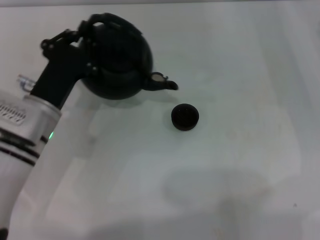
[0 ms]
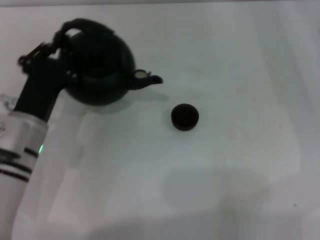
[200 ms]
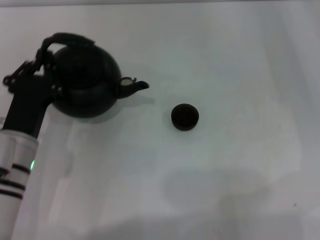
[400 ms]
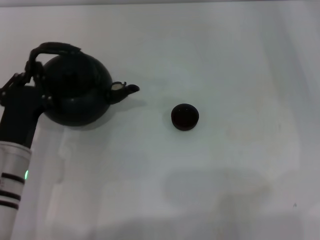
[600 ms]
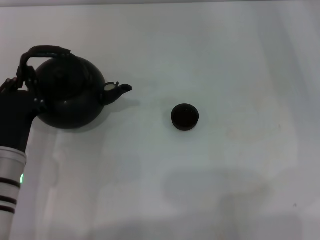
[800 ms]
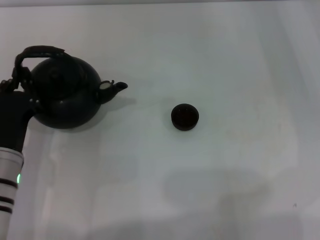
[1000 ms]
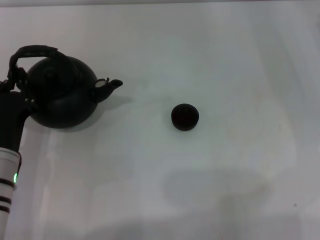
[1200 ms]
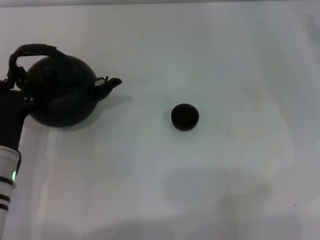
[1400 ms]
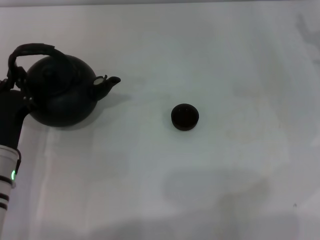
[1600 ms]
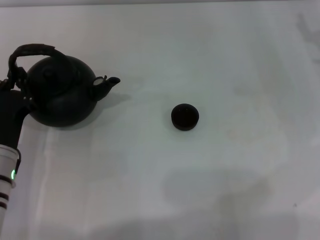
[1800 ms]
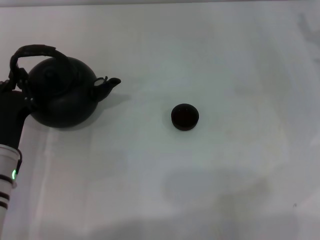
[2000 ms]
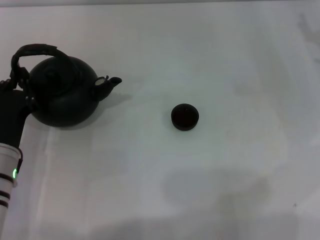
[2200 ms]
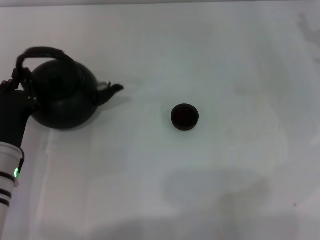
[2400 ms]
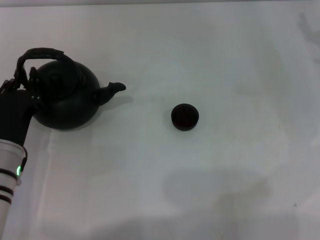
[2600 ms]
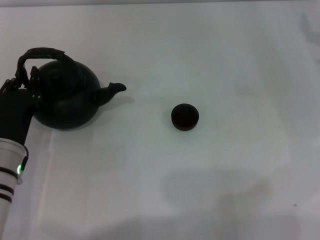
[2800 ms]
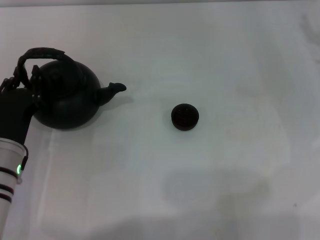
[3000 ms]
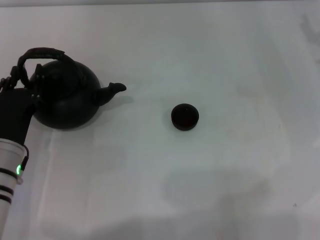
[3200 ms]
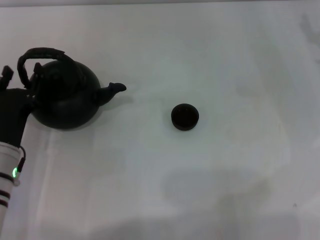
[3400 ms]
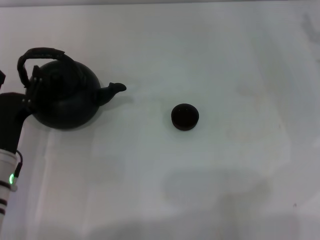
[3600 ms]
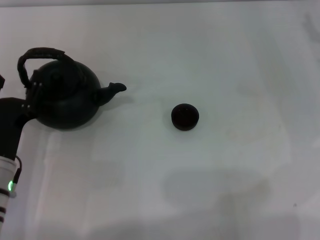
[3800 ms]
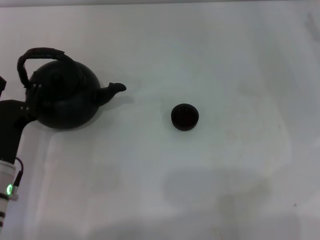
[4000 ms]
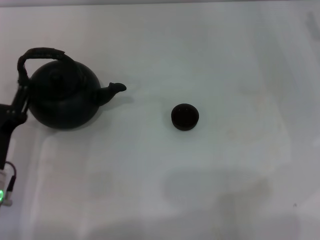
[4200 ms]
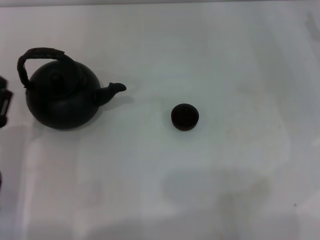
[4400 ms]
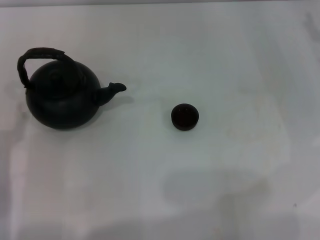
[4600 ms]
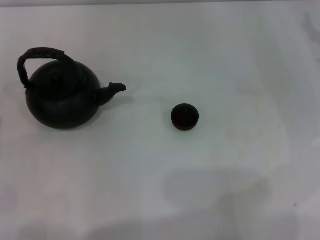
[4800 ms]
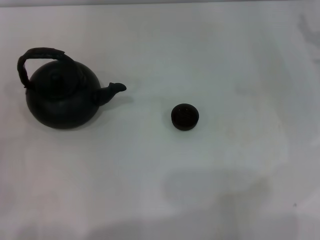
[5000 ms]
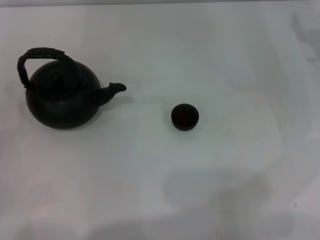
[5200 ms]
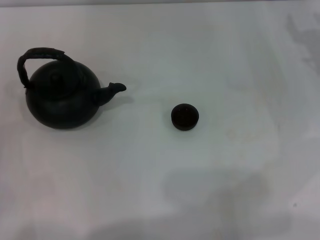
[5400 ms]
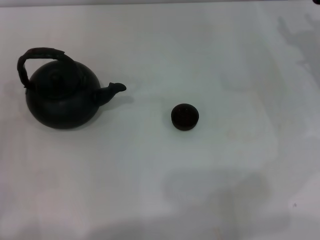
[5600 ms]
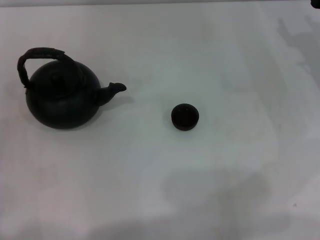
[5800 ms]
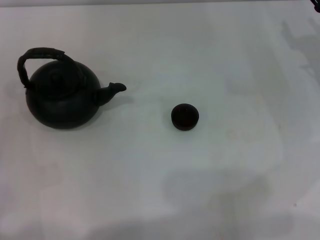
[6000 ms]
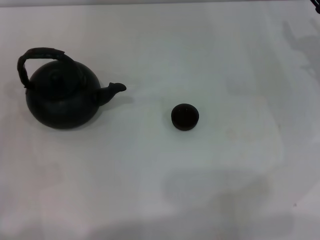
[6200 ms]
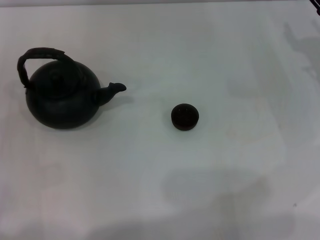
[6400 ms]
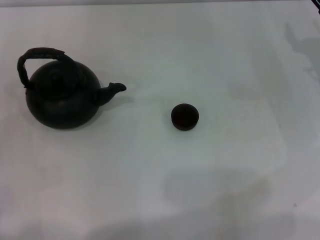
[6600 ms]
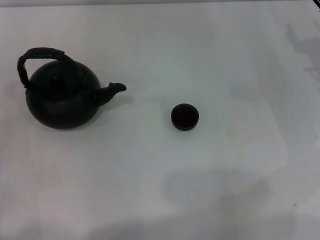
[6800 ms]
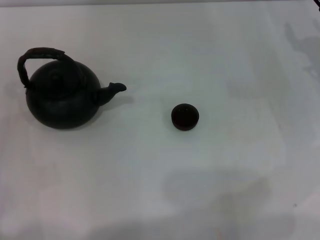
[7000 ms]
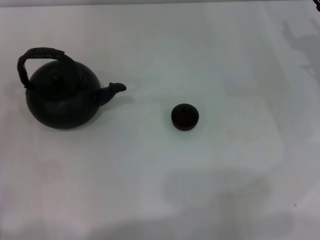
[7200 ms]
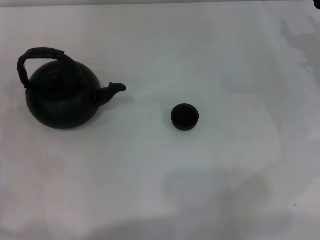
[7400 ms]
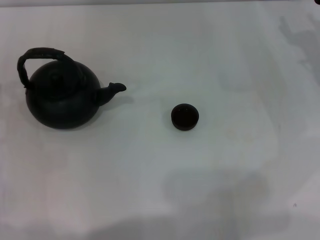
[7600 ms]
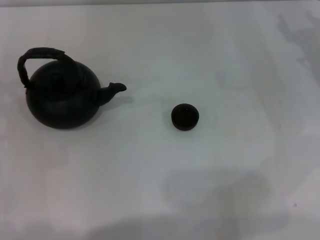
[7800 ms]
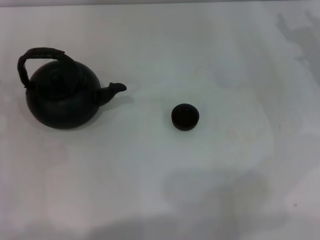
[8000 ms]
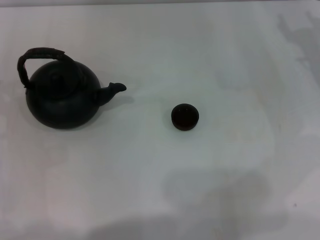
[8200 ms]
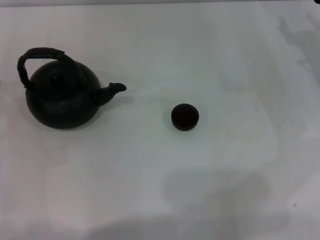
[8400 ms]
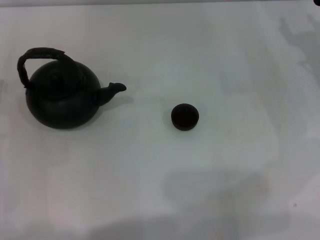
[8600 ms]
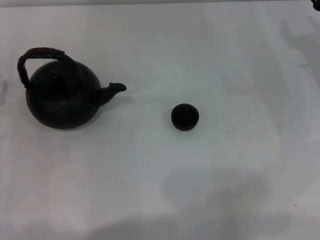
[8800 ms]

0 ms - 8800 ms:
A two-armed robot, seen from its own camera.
Task of the whole recording: Grasp the handle of the teapot with one hand and pour tea into the teacup.
Step, 400 ms - 4200 ms: Put down the teapot with the left gripper.
0 ms - 1400 ms: The left gripper travels backward by roughly 5 cm.
1400 ms - 3000 ms: The grippers make only small movements.
3000 ms - 4400 ms: The left gripper is displaced backward by some 5 cm, and opens up.
4400 ms - 5800 ms: The left gripper moves to the left, roughly 5 cm.

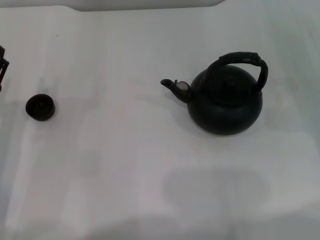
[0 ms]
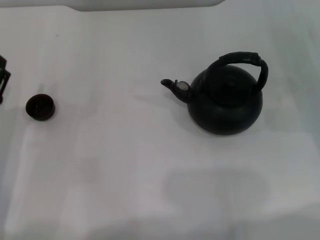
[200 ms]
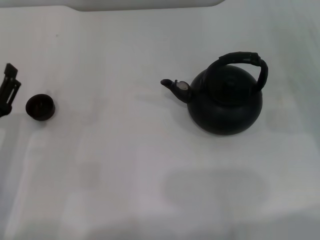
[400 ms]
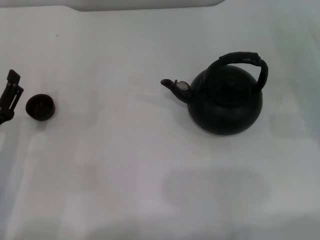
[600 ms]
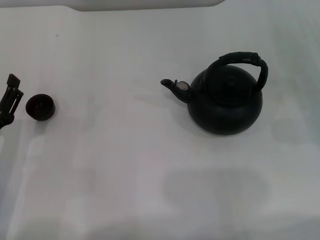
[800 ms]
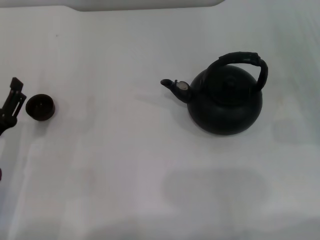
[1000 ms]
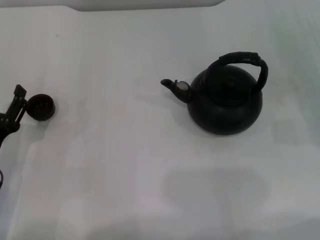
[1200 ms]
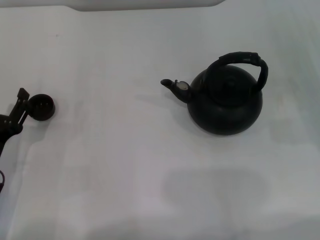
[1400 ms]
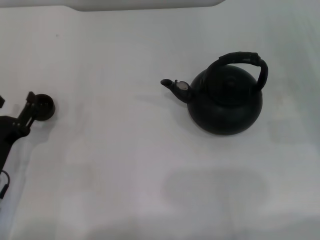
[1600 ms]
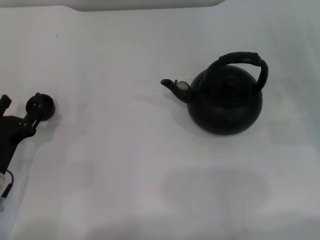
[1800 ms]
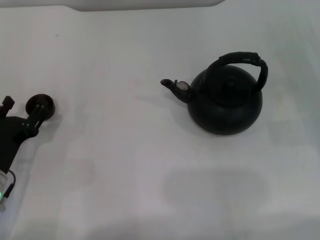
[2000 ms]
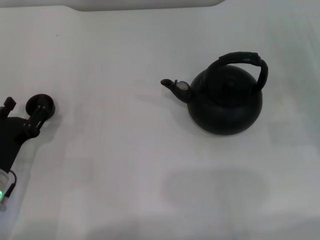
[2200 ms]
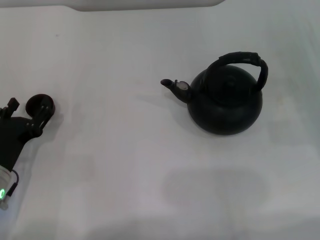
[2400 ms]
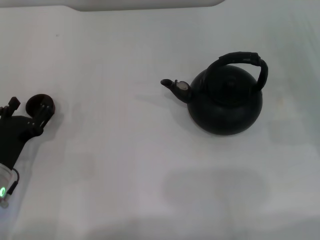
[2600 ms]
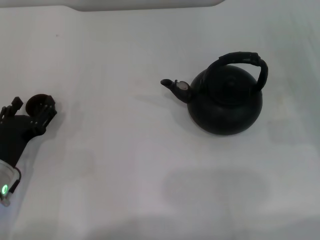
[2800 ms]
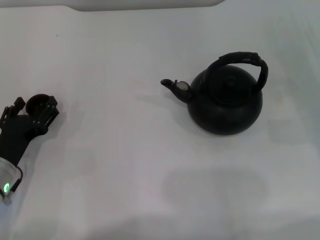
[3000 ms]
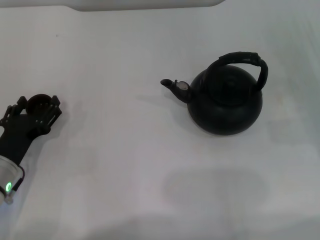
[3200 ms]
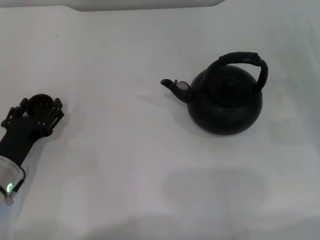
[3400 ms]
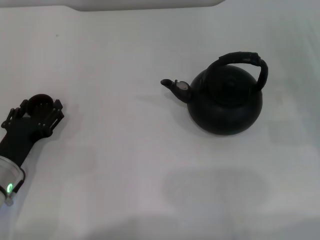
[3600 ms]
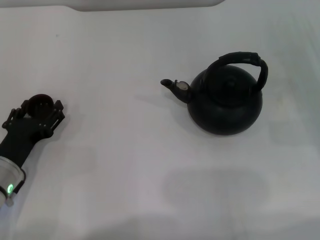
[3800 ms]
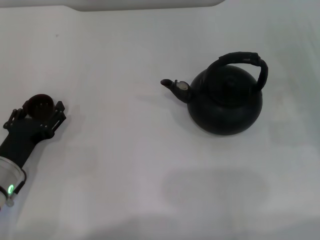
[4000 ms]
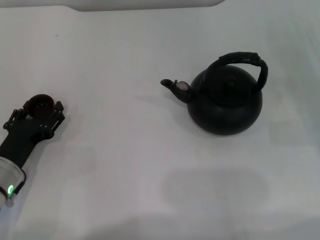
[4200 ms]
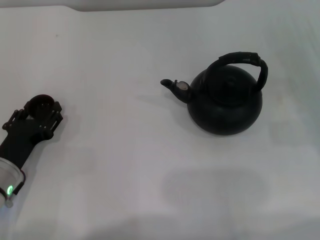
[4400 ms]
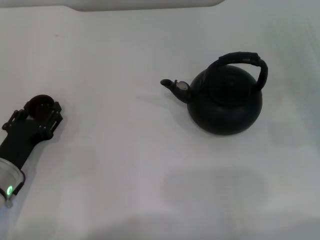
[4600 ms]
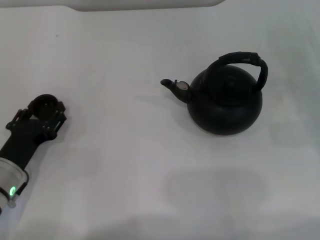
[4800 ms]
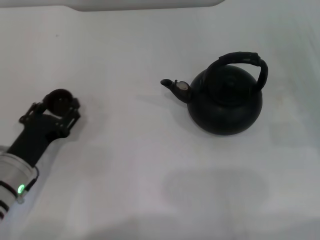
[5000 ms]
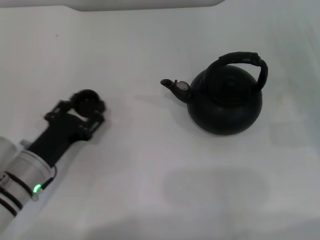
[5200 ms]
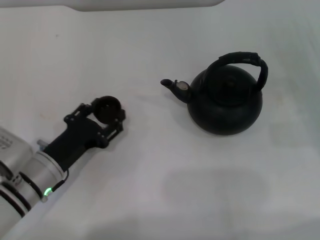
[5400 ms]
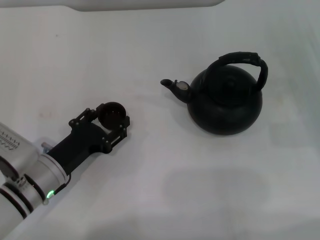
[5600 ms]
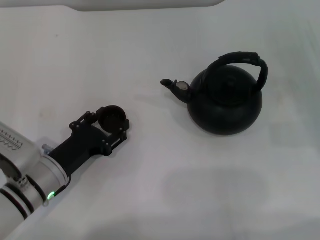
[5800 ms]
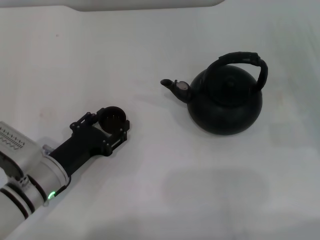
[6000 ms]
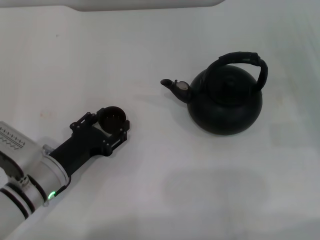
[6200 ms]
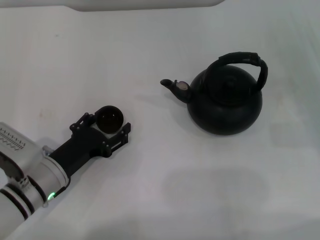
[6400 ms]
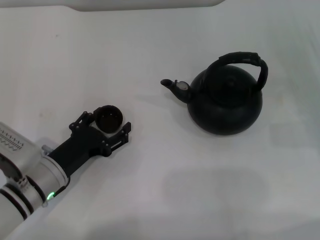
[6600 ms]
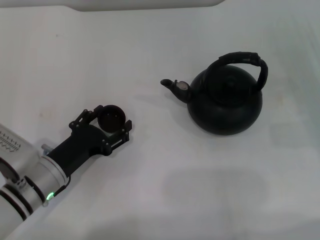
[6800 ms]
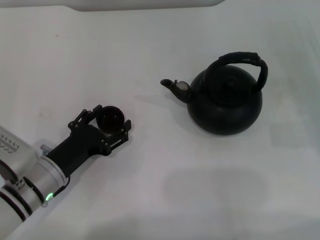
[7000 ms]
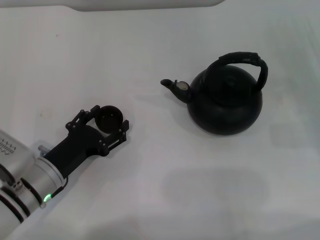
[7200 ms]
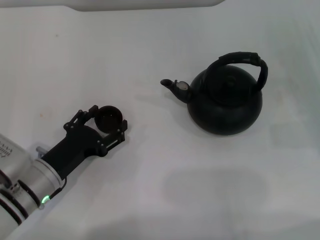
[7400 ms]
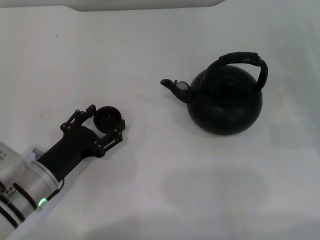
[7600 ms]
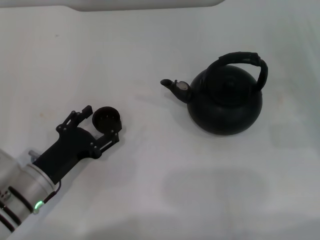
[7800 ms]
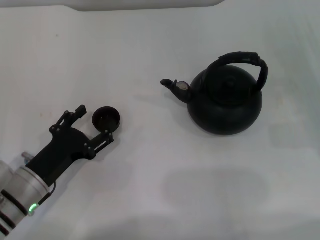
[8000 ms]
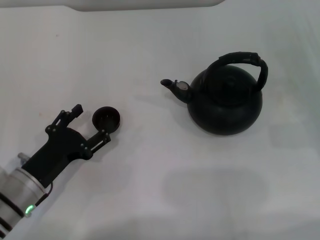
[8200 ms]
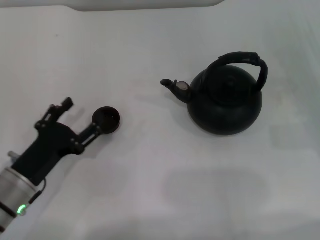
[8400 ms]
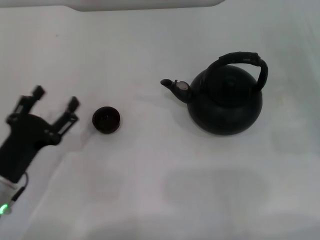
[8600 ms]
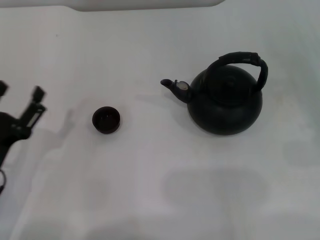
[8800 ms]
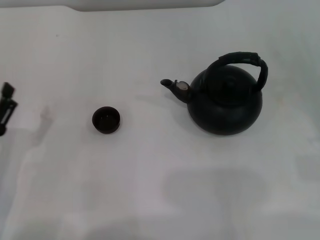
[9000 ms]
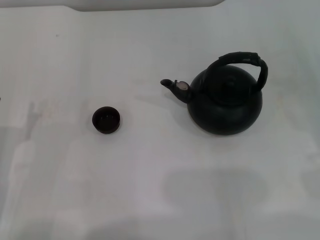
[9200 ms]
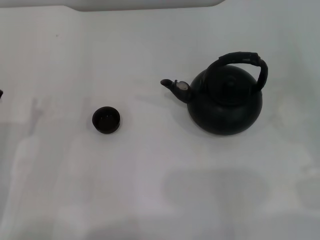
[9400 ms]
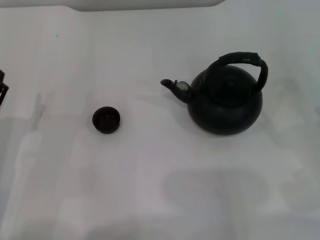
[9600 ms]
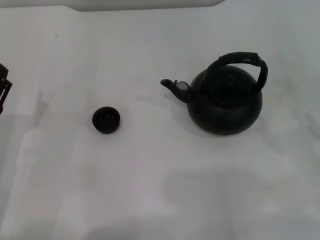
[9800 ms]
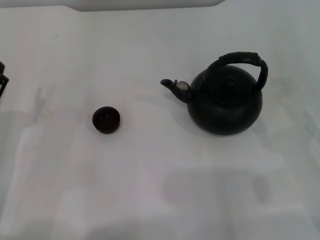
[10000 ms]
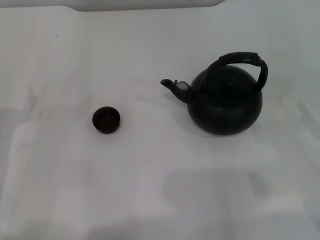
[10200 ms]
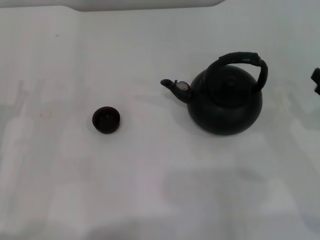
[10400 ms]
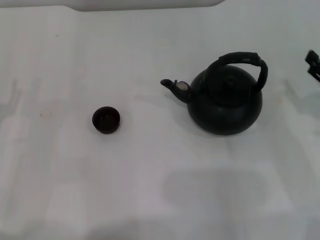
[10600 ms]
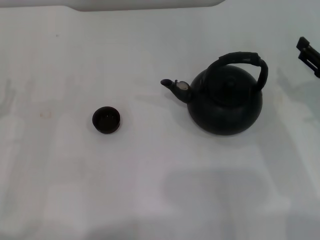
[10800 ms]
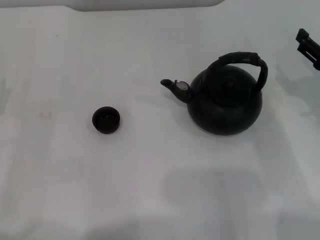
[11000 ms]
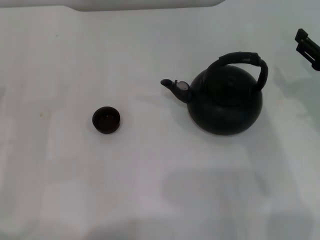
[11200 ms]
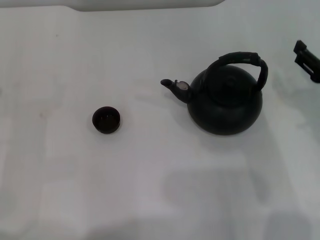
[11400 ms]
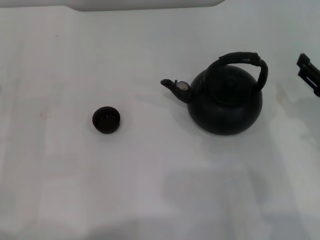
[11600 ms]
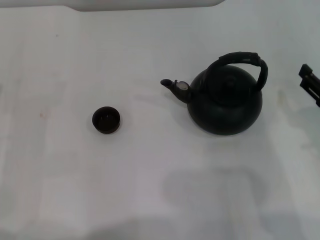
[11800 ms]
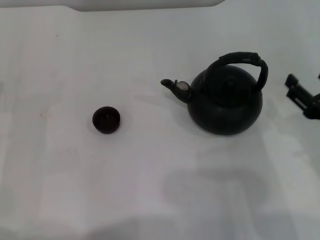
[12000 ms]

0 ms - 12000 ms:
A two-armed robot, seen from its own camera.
Task of the whole recording: Grasp the handle of the teapot with one hand and pour tea into the teacup.
Step, 0 ms - 4800 ms: Pick up the teacup with the left gripper.
Step, 5000 ms - 8400 ms: Place the teacup in the center of view with the left gripper.
0 ms - 1600 ms: The grippers move only a little.
1600 ms - 3000 ms: The grippers stay close to where they were, moving slightly.
3000 ms - 4400 ms: The left gripper closes up.
4400 ms - 6000 ms: The left gripper shifts some 5 cm to the right, and closes its fingers.
6000 ms - 7600 ms: The left gripper opens.
7600 ms - 9000 ms: The right gripper travels backward by some 5 cm. Meanwhile the left gripper goes some 5 cm to the left.
9000 ms - 10400 ms: The left gripper changes place by some 5 cm.
10400 ms - 12000 ms: The right gripper shifts approximately 5 cm to the left.

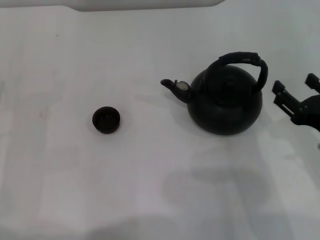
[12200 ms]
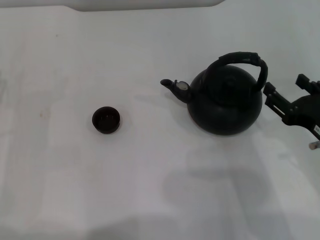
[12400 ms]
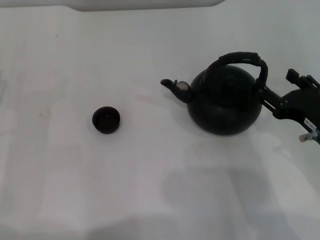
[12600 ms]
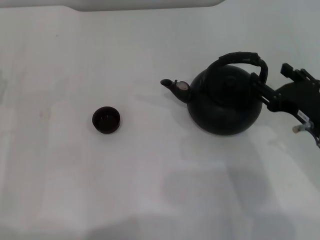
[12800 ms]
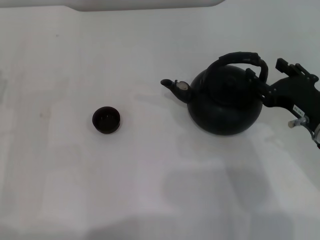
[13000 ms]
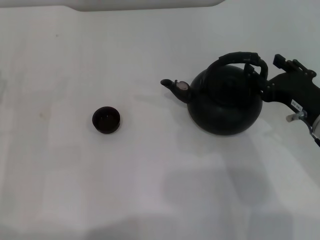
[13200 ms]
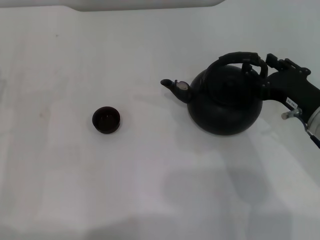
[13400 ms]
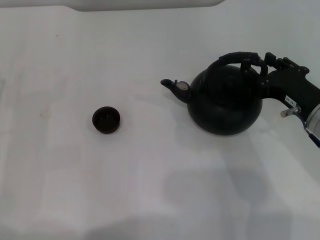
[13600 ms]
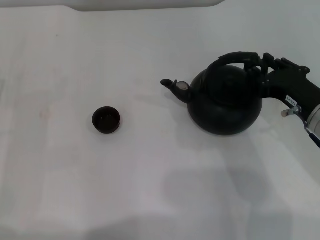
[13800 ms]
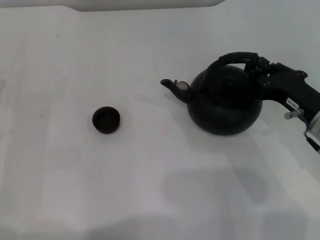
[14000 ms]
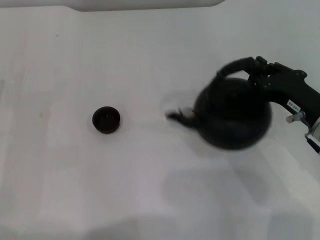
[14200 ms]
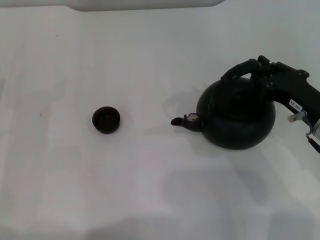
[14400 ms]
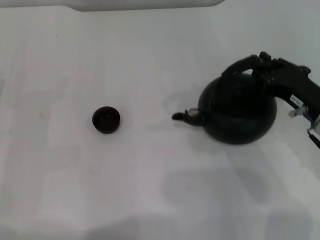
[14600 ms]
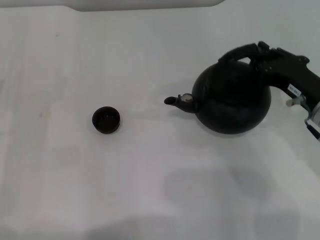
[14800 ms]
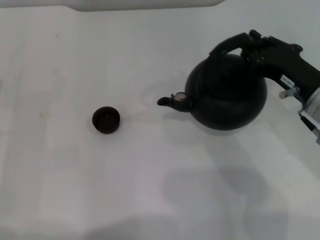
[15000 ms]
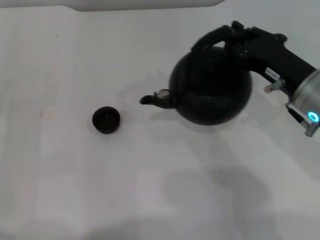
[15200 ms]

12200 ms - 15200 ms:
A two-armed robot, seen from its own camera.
Task of the whole recording: Grasp the handle of the teapot with one hand and pour tea into the teacup.
Step, 12200 ms - 15000 ms: Pick up the teapot with the right gripper.
12200 ms - 13800 ms: The right gripper is displaced forward by some 5 cm.
13800 ms - 15200 ms: The right gripper closes.
